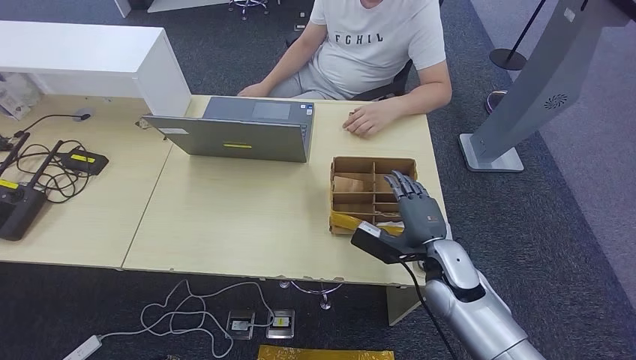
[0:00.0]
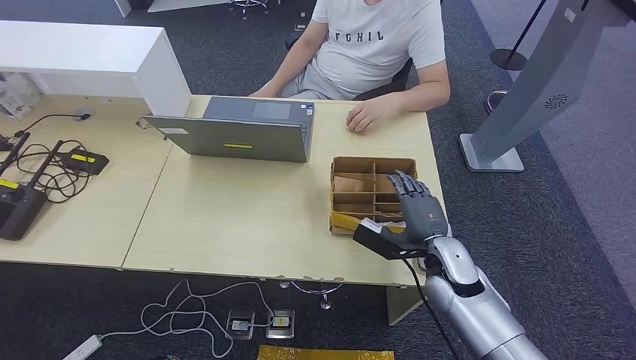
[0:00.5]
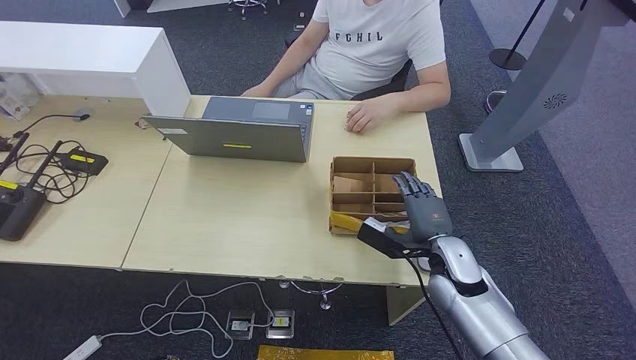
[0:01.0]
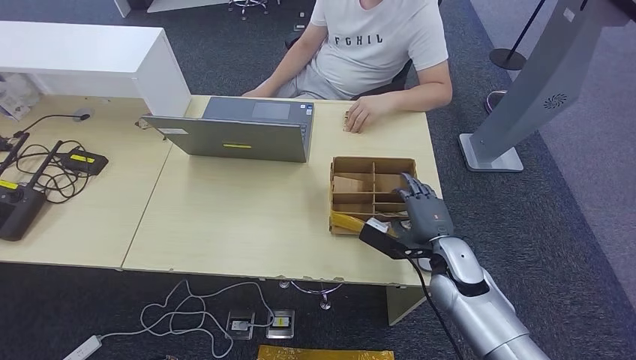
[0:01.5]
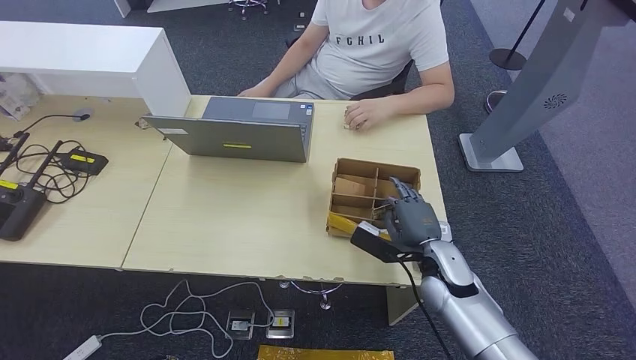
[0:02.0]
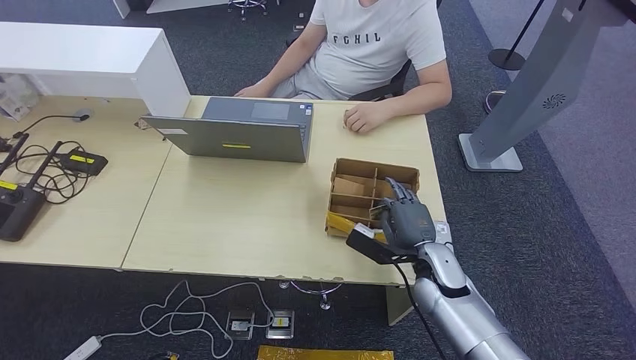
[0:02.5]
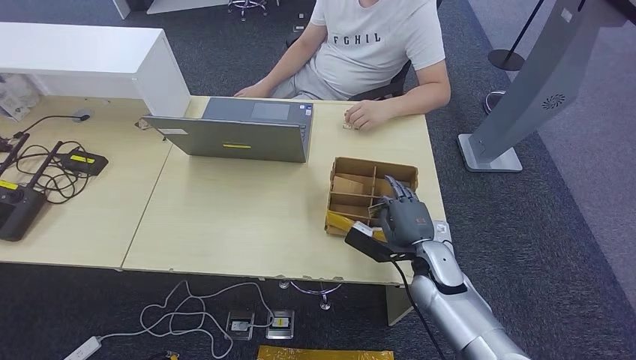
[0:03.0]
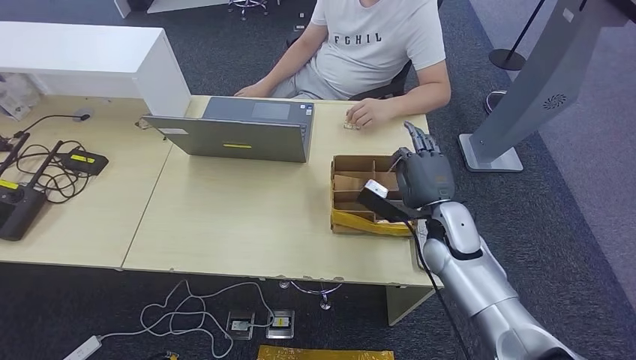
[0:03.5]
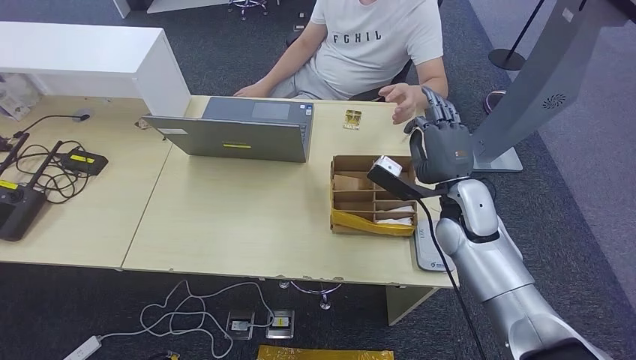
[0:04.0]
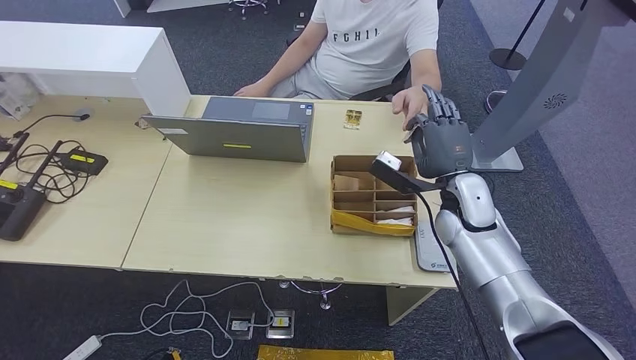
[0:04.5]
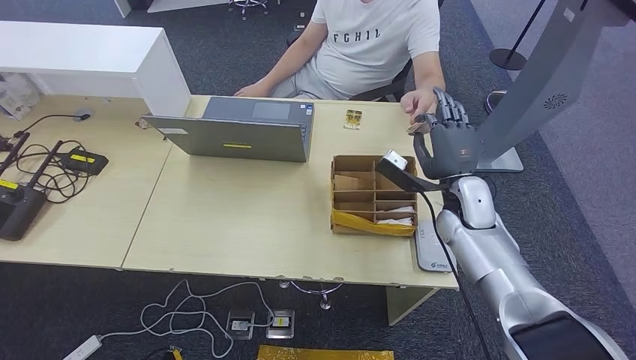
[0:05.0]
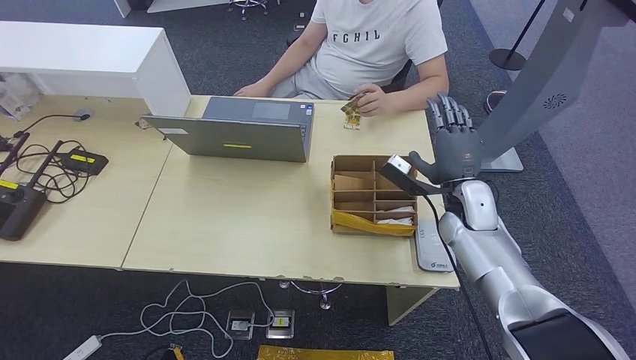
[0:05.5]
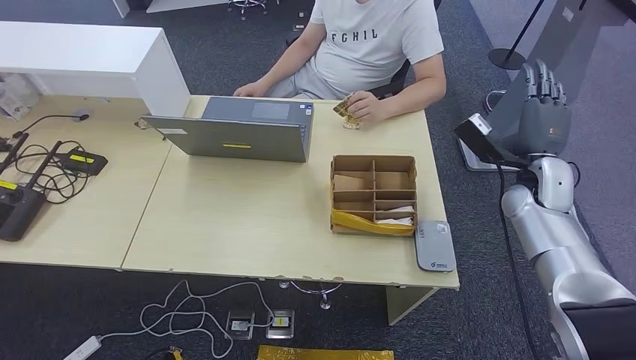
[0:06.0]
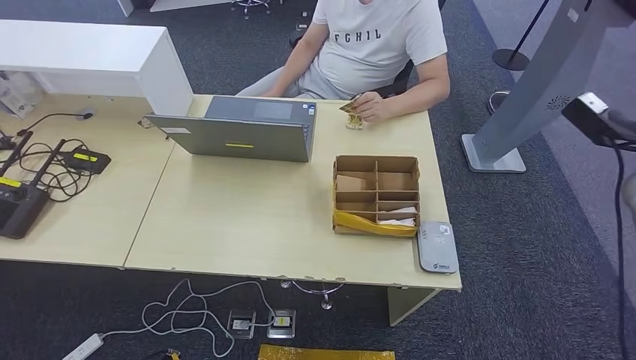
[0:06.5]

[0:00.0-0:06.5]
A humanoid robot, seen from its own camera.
Step, 0:00.0 to 0:04.0: Pick up the room key from the key card box.
Step, 0:04.5 to 0:06.5: Hand the room key to the person.
0:00.0 to 0:02.0: The hands stay close to where they were, moving slightly.
0:02.0 to 0:04.5: The right hand travels upward and forward by some 15 cm.
0:04.5 to 0:06.5: The right hand is displaced to the right by about 30 cm.
